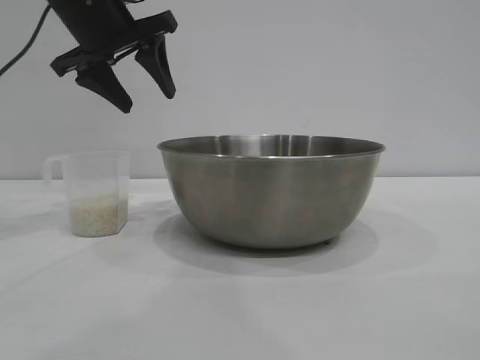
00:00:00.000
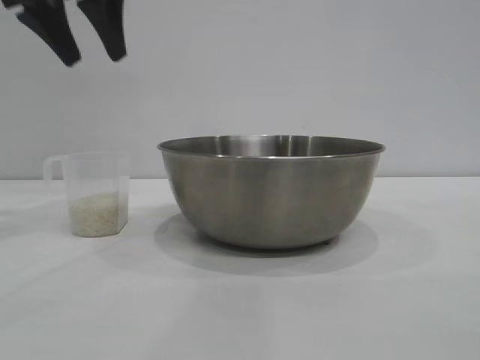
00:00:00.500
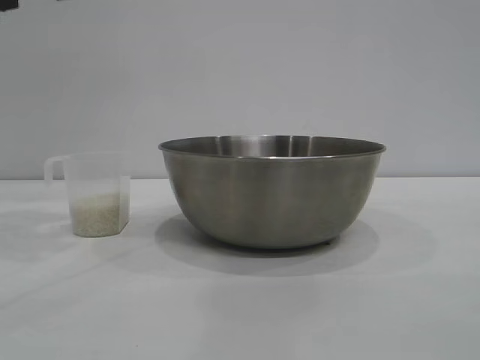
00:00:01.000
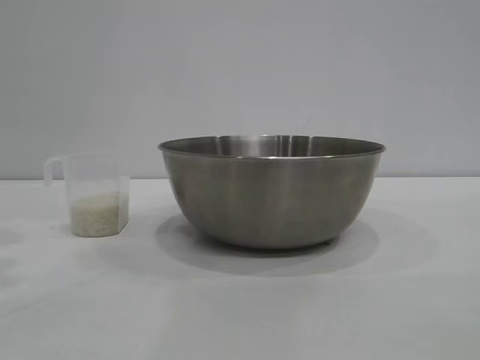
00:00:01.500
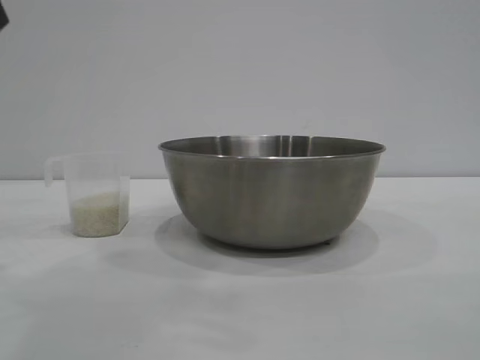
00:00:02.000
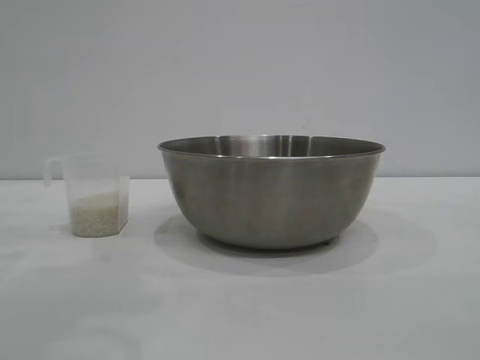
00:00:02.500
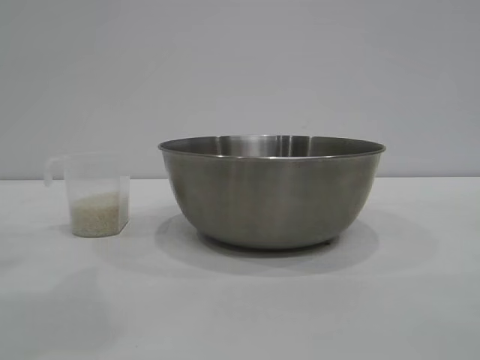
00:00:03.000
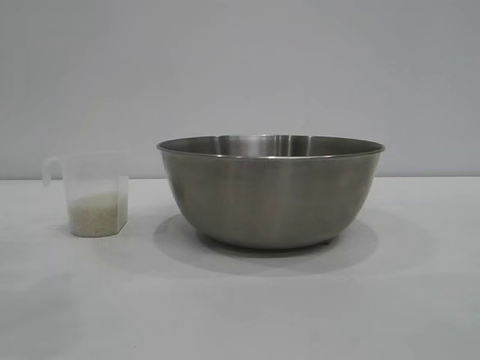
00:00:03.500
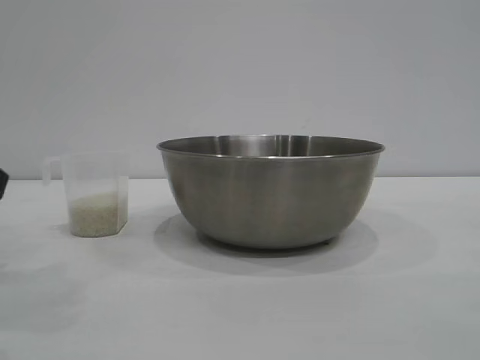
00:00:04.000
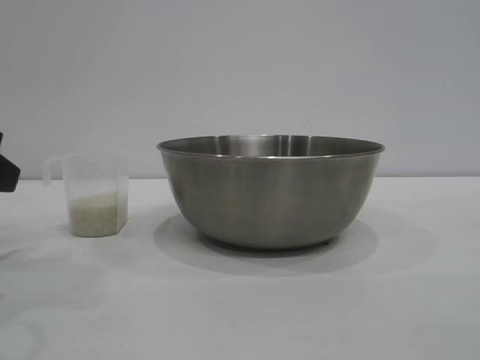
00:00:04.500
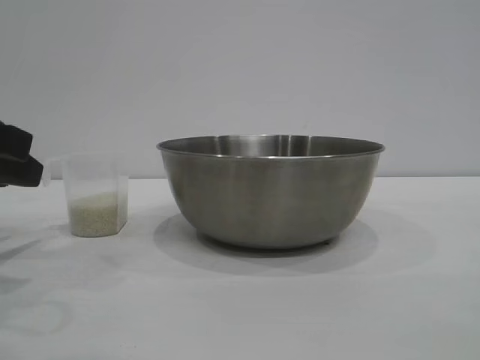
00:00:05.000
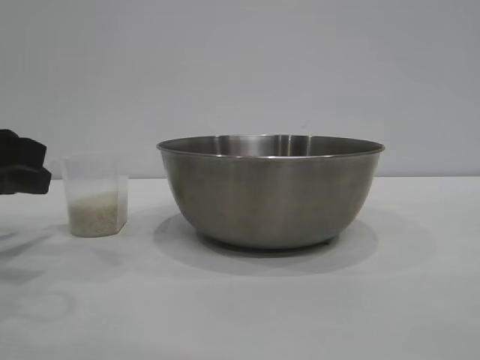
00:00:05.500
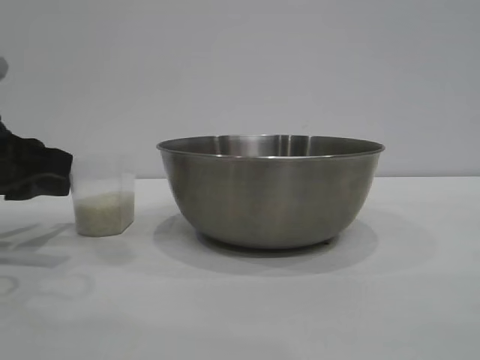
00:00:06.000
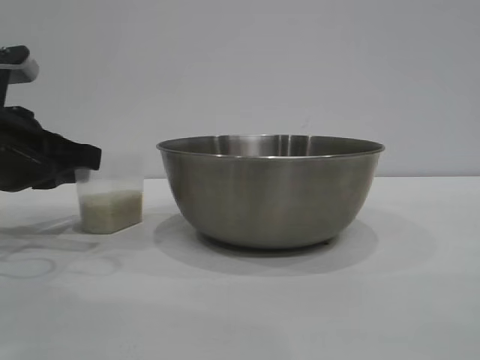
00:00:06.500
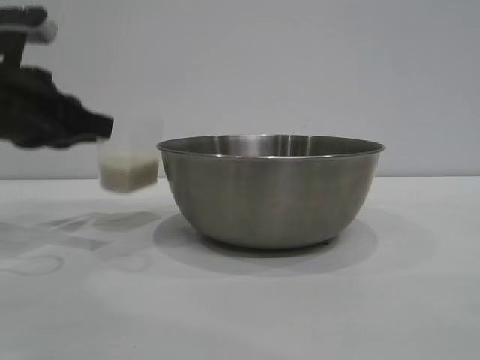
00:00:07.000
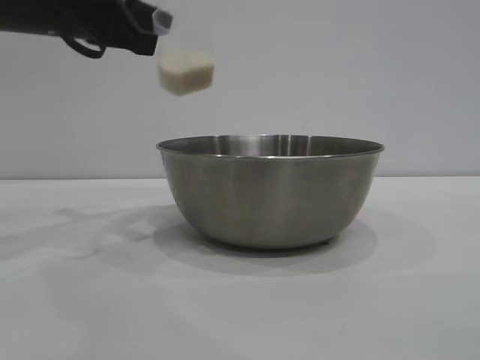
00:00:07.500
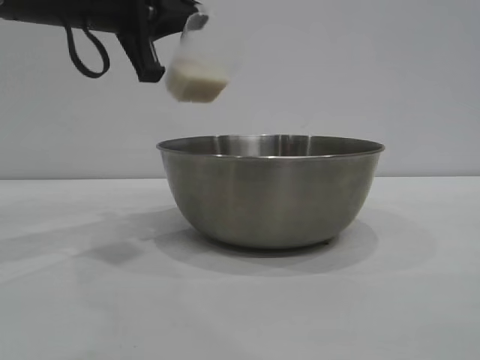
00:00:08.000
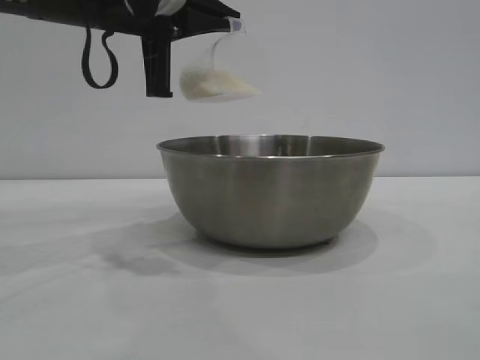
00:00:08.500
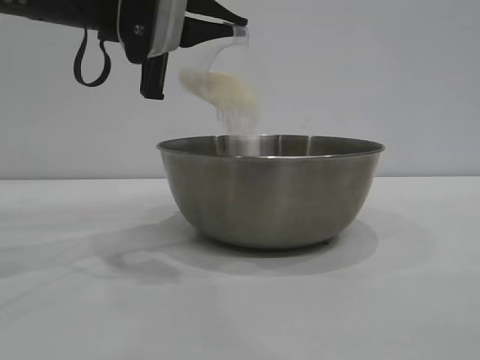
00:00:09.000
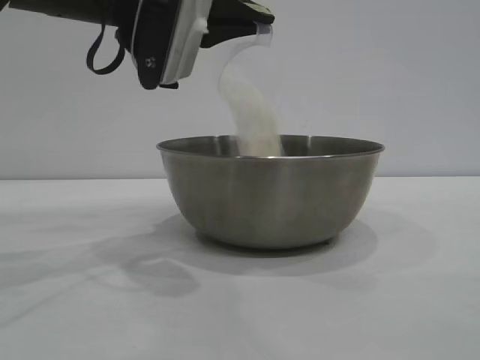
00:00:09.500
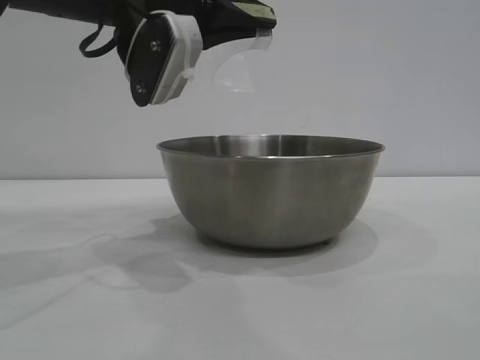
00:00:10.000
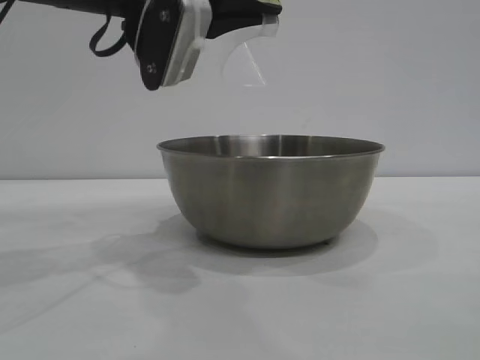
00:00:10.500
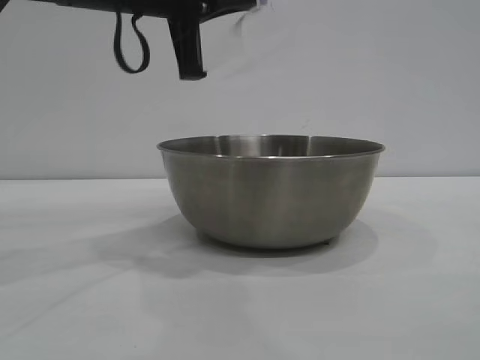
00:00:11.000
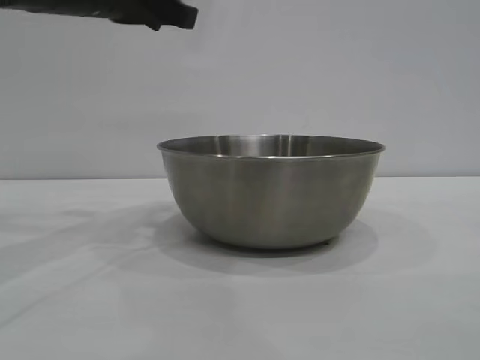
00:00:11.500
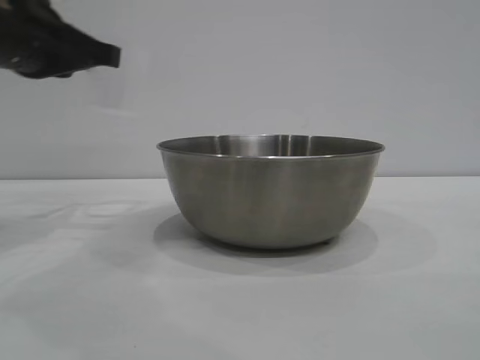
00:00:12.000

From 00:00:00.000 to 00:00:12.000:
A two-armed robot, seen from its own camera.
Task of the whole recording: the right gripper grasp the rice container and place it in the center of the table, the left gripper grasp the rice scoop and pour the rice into the rice container.
Step, from 00:00:00.000 to 00:00:07.000: Pick up the cup with rice in it with the left gripper.
Step, from 00:00:07.500 to 00:00:10.500: Pour the rice from the cup into the bowl with the left gripper.

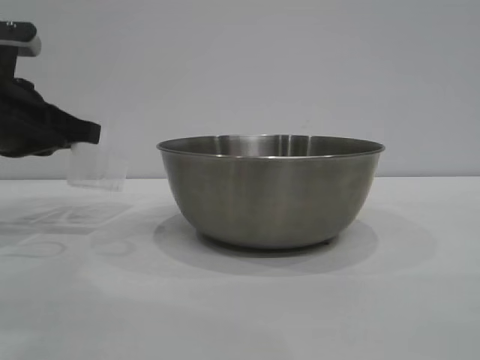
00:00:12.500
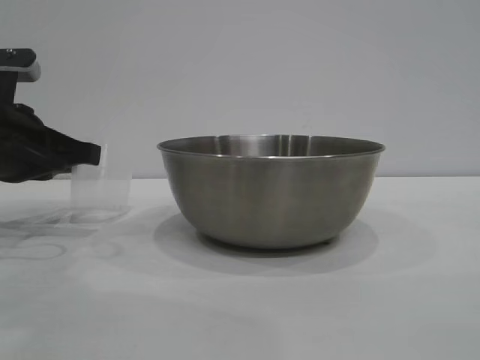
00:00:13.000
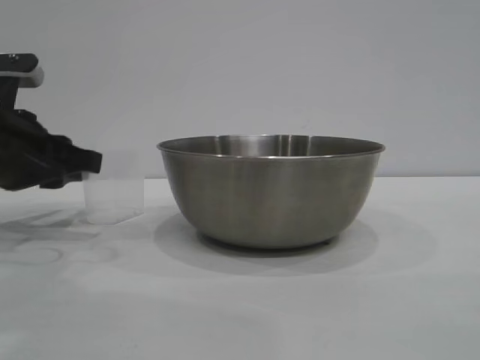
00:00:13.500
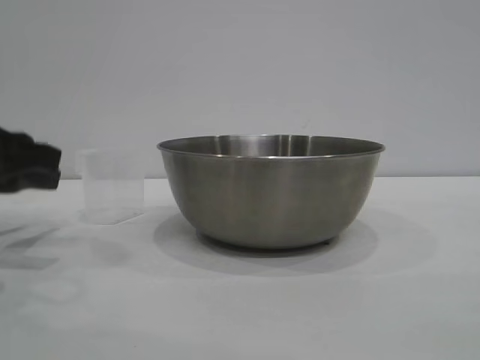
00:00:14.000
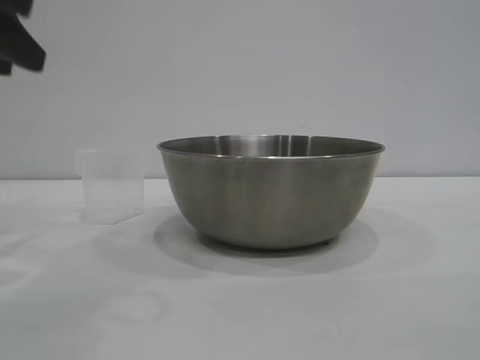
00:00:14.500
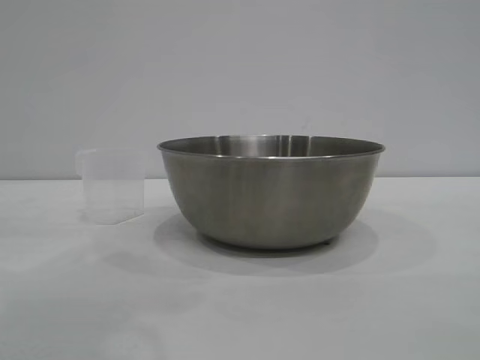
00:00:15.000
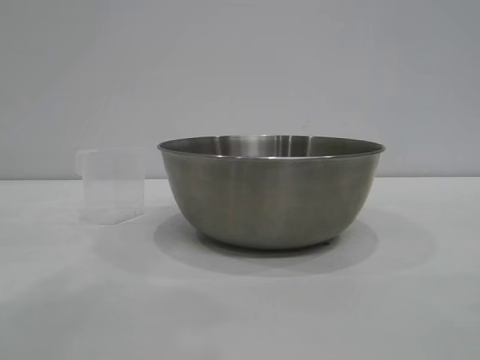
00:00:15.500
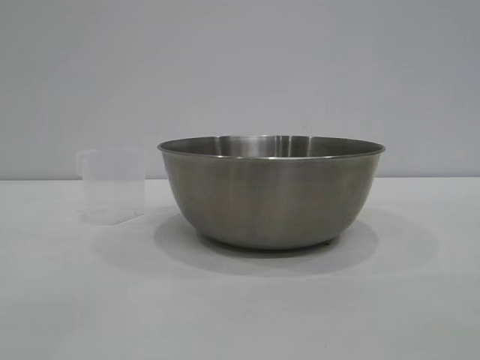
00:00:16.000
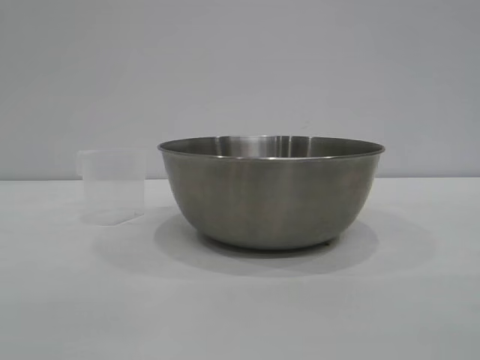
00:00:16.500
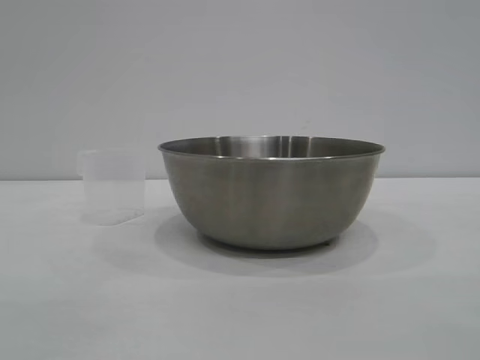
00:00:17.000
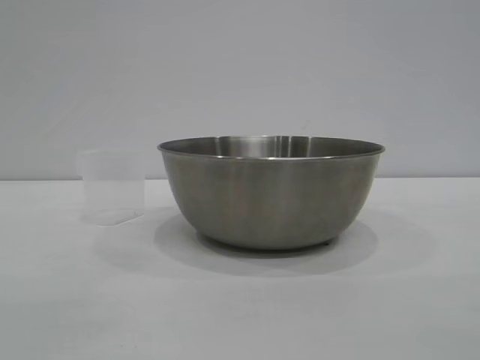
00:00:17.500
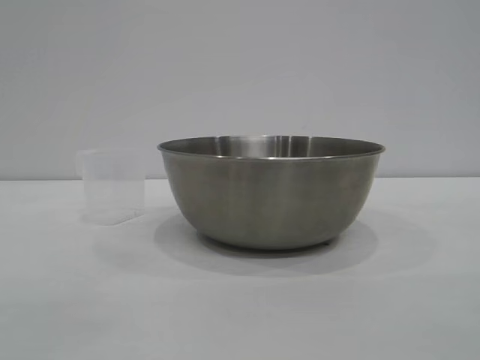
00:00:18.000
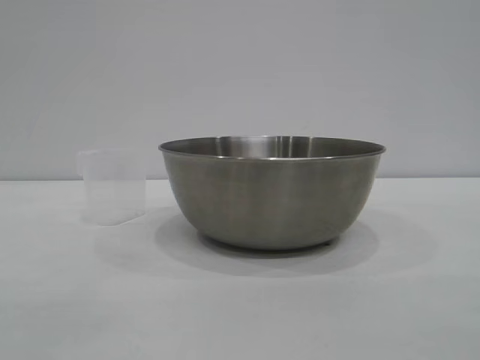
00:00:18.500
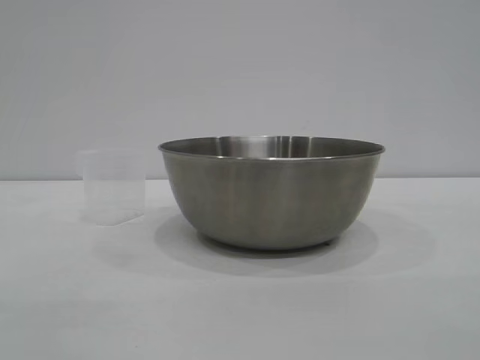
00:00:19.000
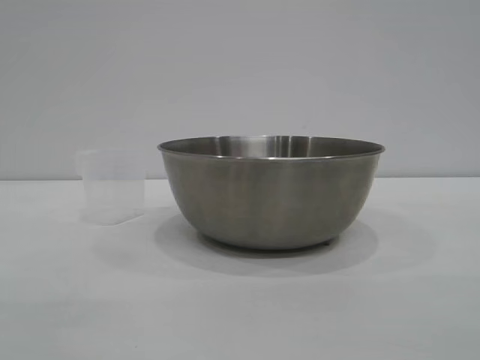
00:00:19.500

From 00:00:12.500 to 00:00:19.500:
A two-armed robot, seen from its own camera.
Task of the whole recording: the right gripper grasp the rice container and place it in the center of the table, the left gripper grasp the rice scoop and pour the rice into the rice container.
Step, from 00:00:12.500 to 00:00:14.000: Place the cup on the table with the left gripper.
